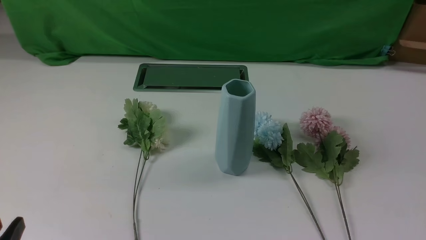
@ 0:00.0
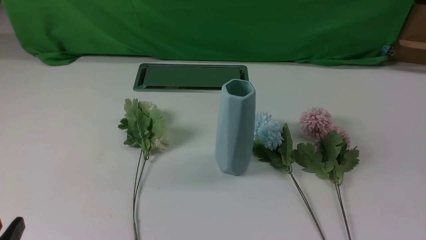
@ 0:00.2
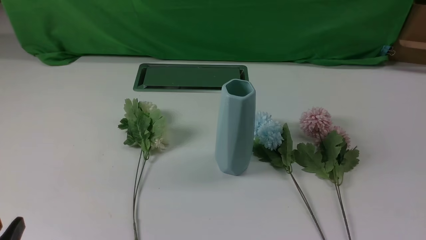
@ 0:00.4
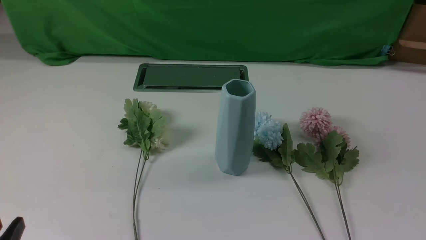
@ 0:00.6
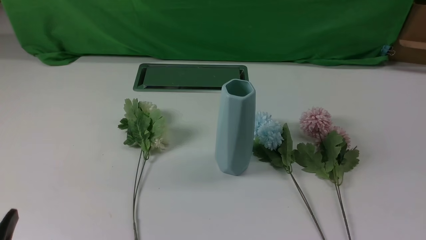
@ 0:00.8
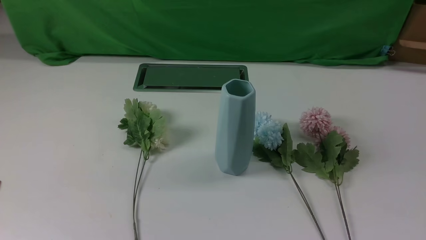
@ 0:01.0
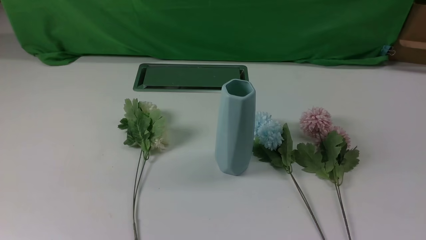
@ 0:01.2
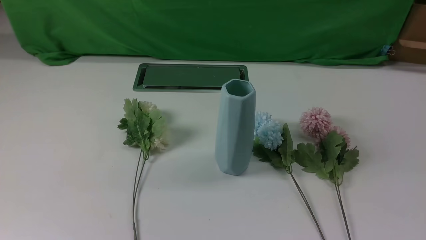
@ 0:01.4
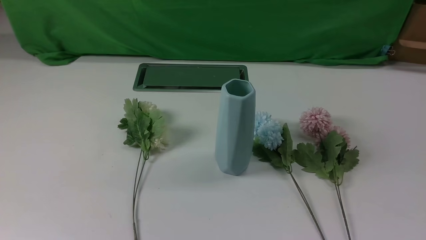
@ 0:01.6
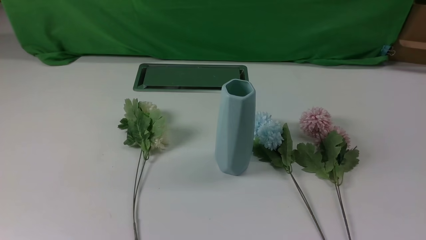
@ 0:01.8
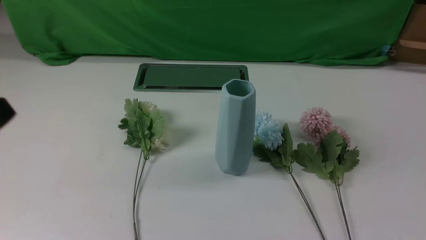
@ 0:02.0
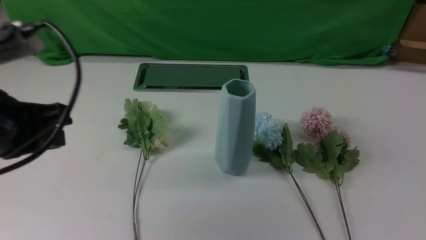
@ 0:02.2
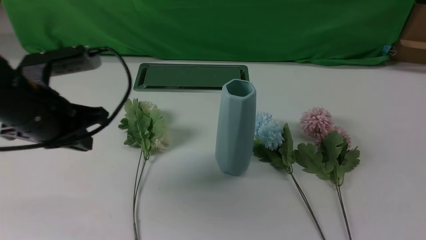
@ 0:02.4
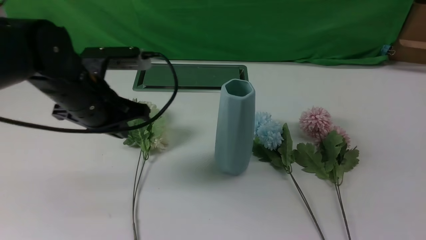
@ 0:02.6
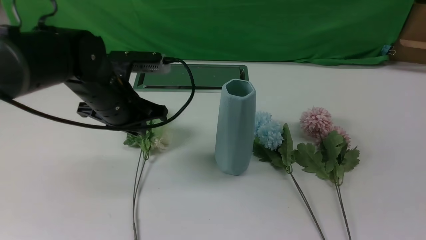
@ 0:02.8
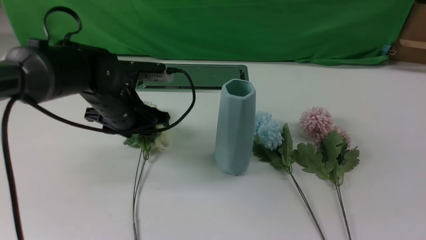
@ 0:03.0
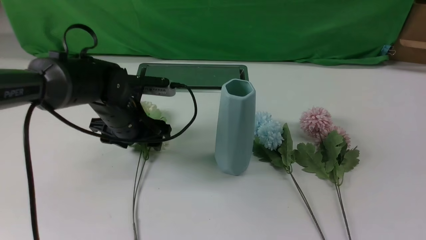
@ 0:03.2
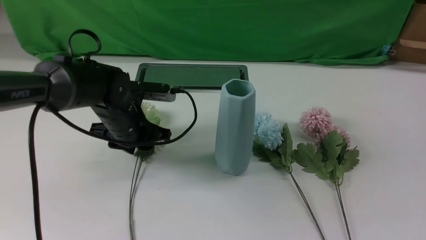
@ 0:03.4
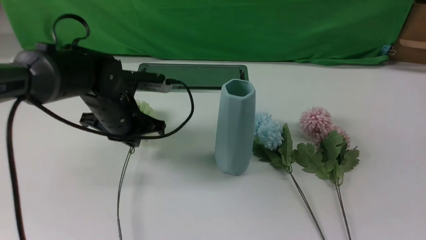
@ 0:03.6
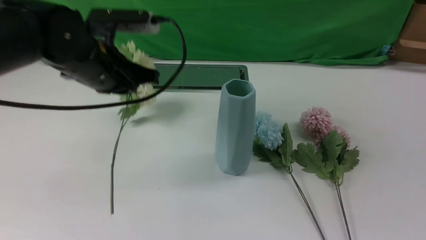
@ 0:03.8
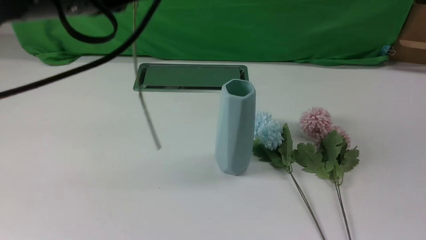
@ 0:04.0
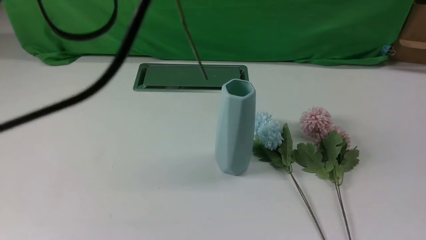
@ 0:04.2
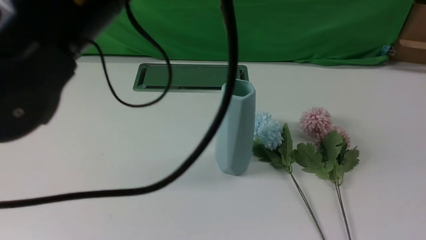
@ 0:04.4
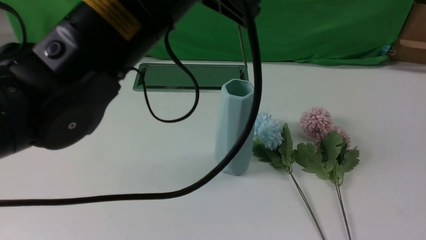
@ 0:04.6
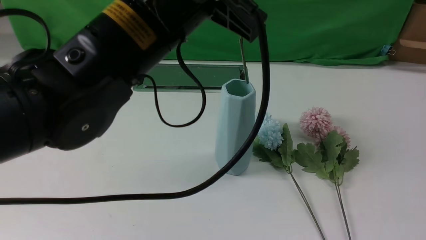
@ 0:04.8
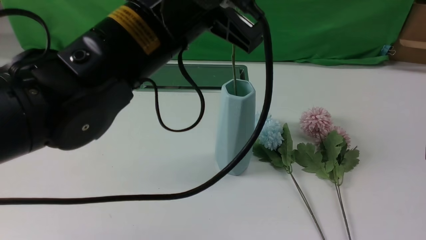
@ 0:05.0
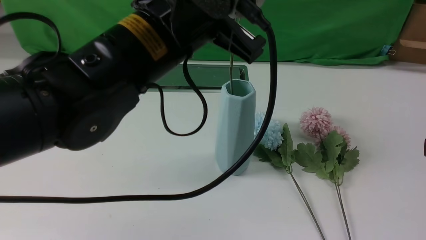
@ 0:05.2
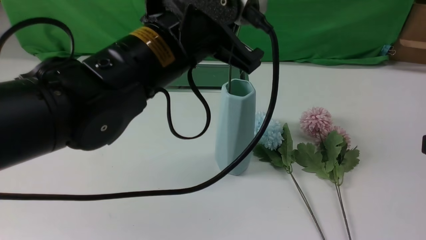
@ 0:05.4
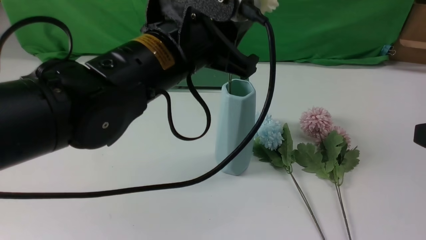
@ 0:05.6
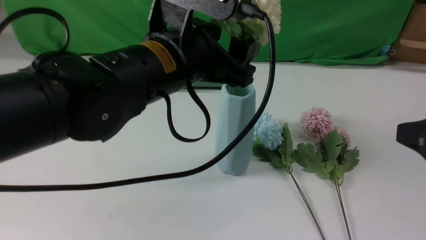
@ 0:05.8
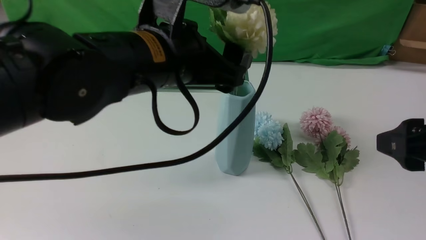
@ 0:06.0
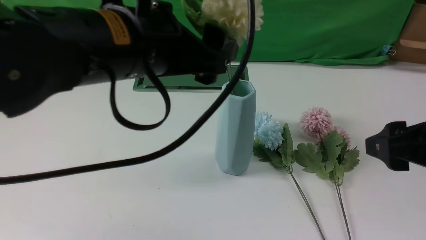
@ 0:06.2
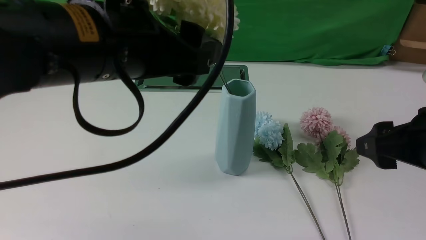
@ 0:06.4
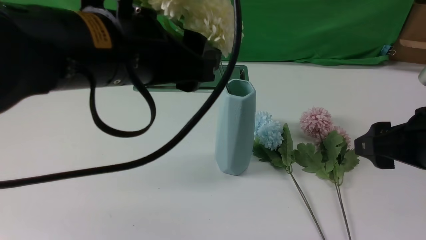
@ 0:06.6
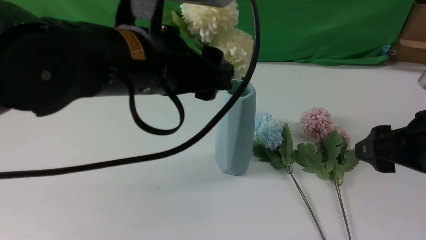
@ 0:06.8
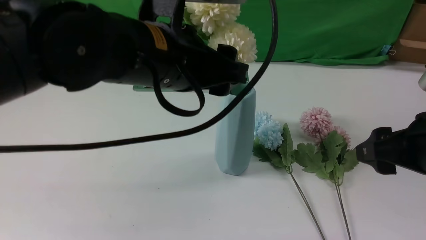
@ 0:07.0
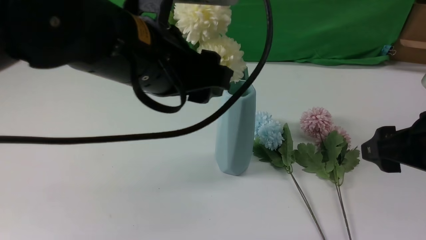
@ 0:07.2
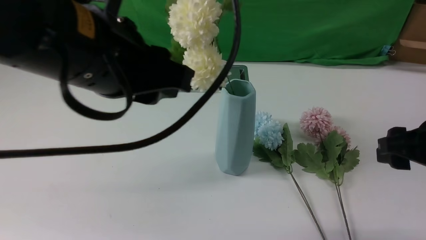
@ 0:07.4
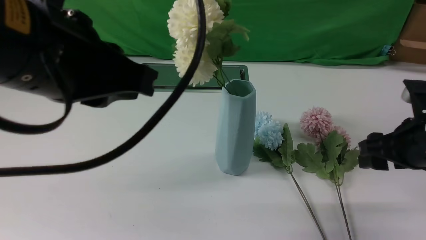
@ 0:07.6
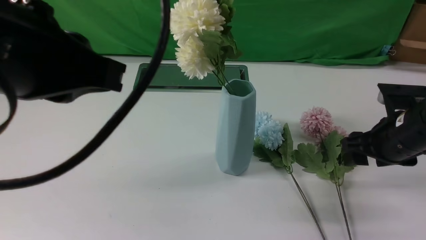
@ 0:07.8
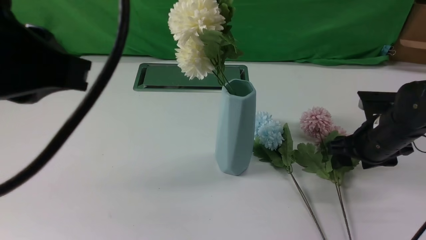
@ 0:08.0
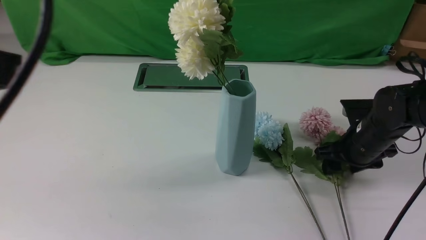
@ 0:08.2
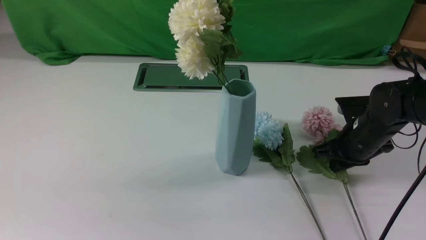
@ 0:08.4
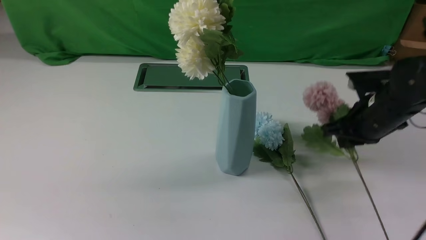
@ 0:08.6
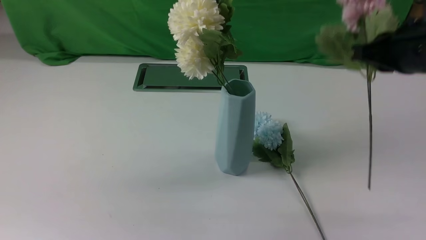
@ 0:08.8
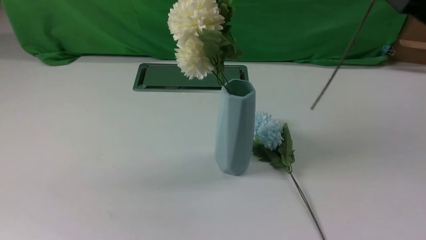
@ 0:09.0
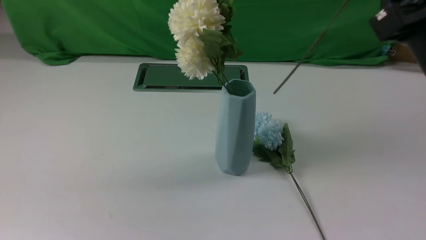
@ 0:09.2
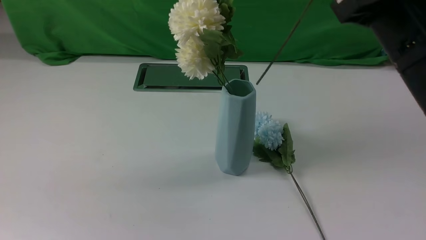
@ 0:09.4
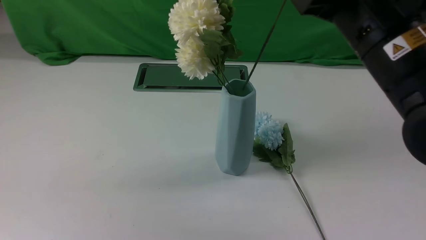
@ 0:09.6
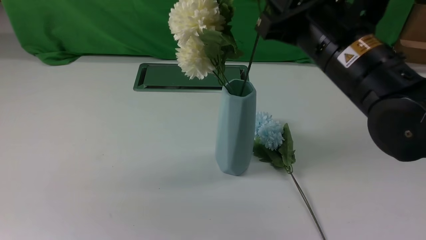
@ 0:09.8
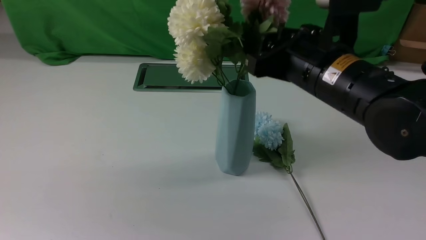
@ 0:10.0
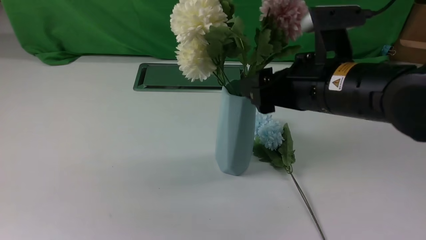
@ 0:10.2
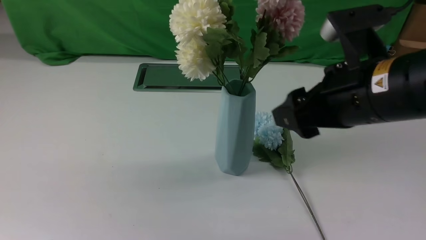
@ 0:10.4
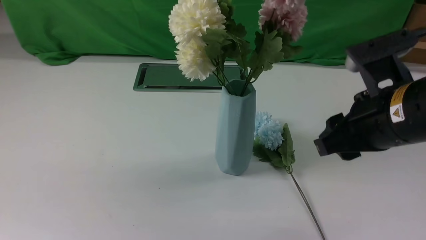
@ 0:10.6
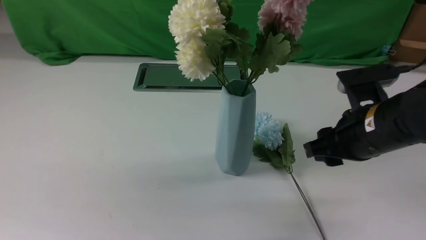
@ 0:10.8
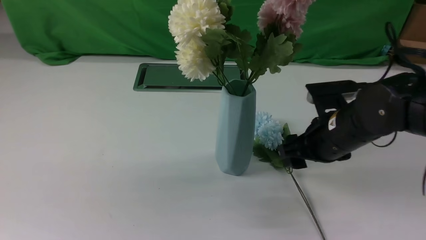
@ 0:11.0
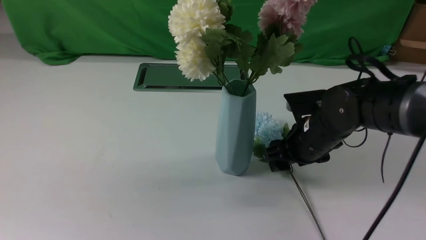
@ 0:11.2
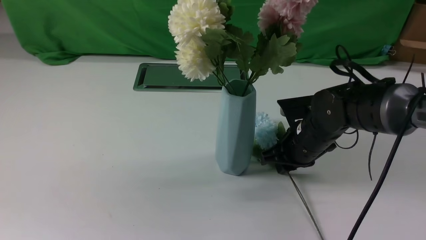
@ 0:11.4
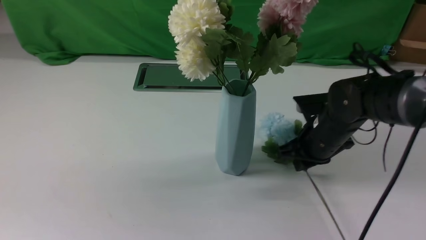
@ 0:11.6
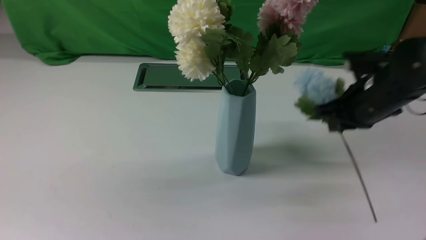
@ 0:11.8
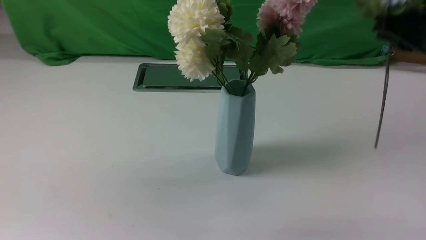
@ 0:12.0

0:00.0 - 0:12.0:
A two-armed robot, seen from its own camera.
Task of the whole recording: insert the flowers into the vase on the white table.
Step, 0:00.0 - 0:03.4: use the left arm to grab a bunch of fresh flowers.
Step, 0:03.6 - 0:07.2: use the left arm to insert the flowers into the vase.
Step, 0:07.4 - 0:08.4: use the right arm to grab a bunch of fresh flowers.
Step, 0:08.6 - 0:10.2: use the right arm to insert the flowers into the vase.
Step, 0:10.4 - 0:11.4: use the right arm to grab a bunch of fresh flowers.
0:01.6 - 0:03.0: The right gripper shifts some 15 cm upward and forward; the left gripper is displaced forward by some 35 cm, and opens up.
0:03.0 - 0:04.4: The left gripper goes some 30 cm upward and backward, and closes.
0:04.4 - 0:06.0: The right gripper opens up; the left gripper goes roughly 10 cm downward, and opens its fingers.
0:06.0 - 0:07.6: The right gripper travels forward and downward by about 15 cm; the left gripper moves backward, to the left and upward, approximately 10 cm, and closes up.
0:07.6 - 0:09.0: The left gripper heads to the left and backward, covering some 15 cm. Meanwhile the right gripper goes approximately 15 cm upward and to the left, and closes its fingers.
0:09.0 - 0:10.4: The right gripper is displaced downward and to the left by about 10 cm, and opens its fingers.
0:10.4 - 0:12.0: The right gripper shifts roughly 10 cm to the right, reaches approximately 15 cm downward, then returns, and closes up.

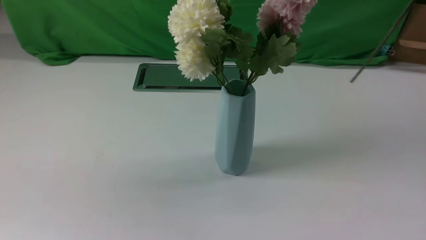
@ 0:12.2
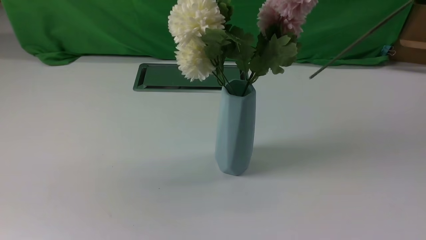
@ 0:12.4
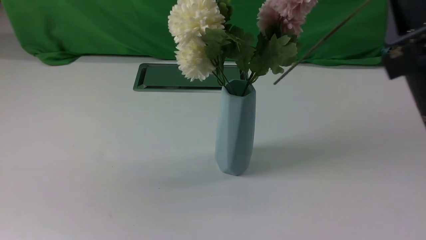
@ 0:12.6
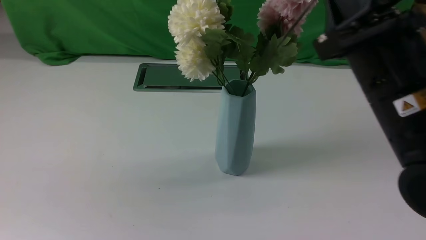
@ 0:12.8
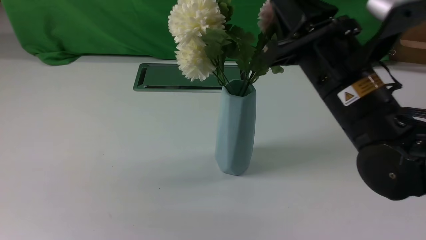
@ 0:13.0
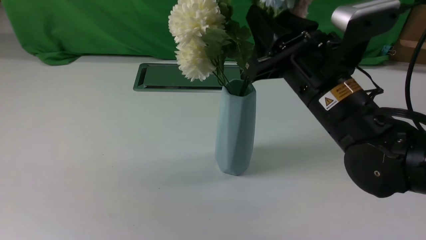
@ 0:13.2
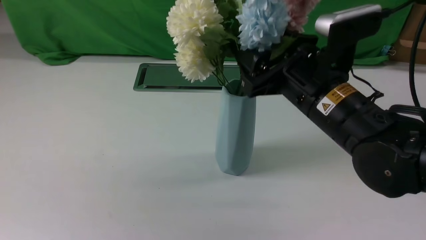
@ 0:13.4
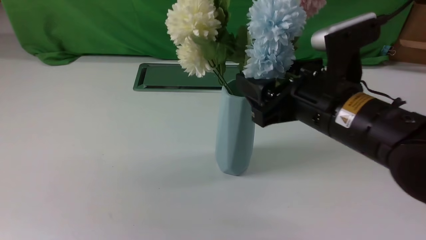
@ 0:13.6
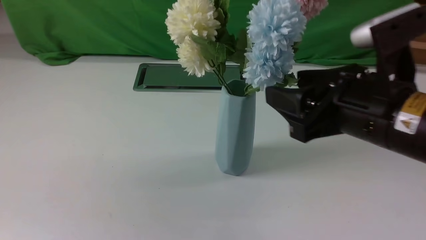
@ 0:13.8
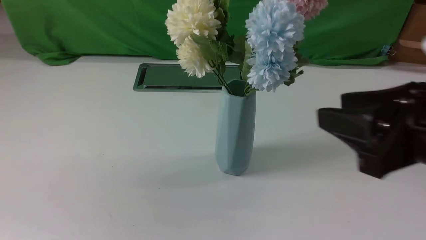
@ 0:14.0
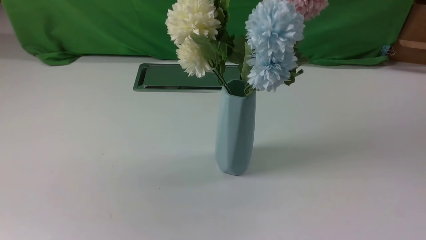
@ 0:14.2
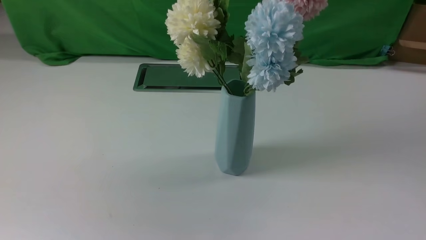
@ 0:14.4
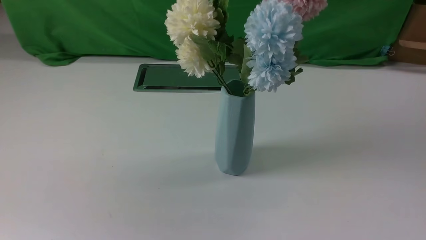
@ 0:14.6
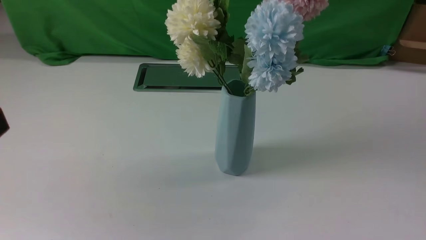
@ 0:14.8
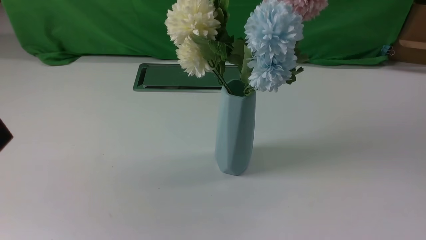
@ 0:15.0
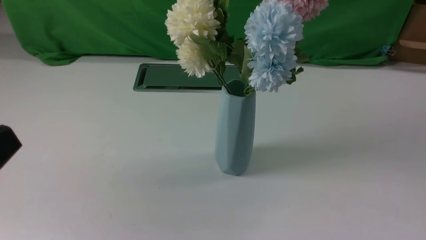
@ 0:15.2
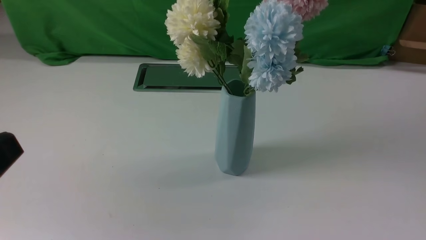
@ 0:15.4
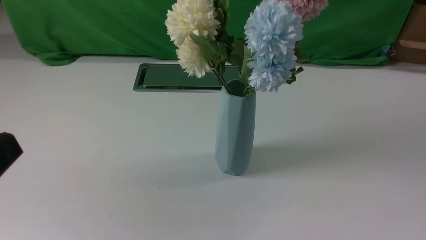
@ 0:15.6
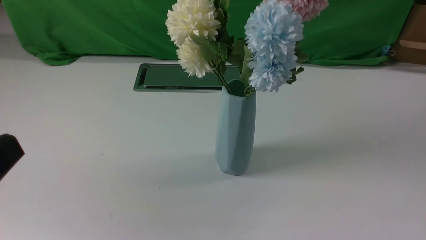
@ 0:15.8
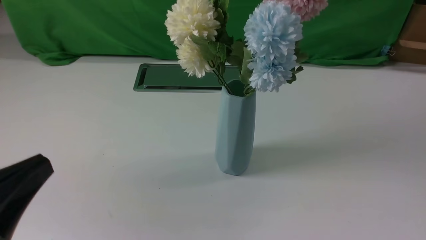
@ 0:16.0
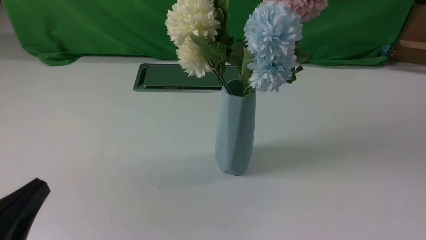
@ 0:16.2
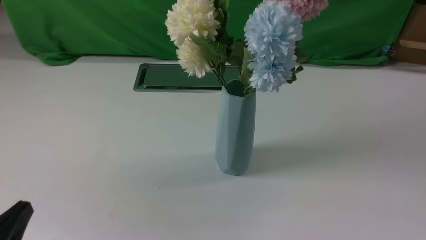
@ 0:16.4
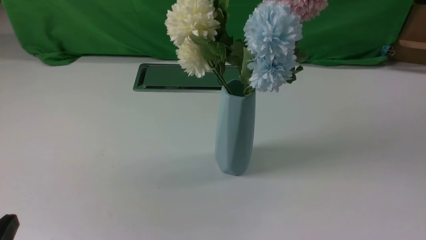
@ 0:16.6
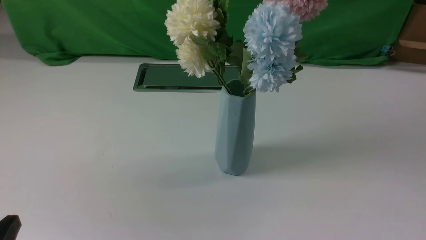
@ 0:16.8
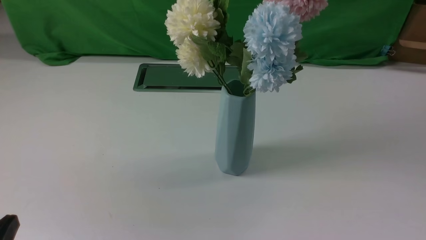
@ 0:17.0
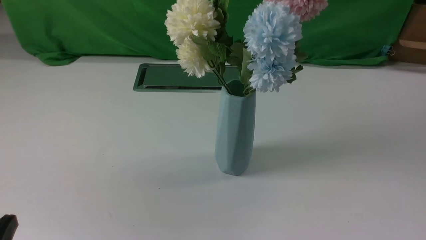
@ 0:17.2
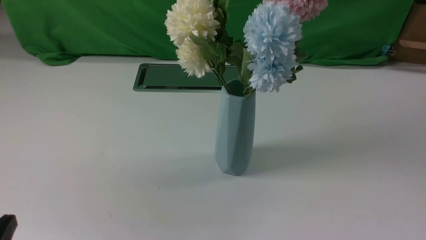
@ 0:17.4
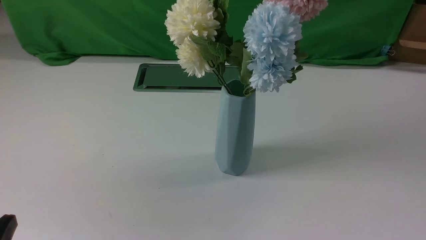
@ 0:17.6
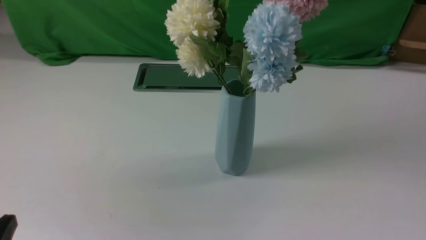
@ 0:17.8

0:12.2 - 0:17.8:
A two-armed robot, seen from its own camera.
Task of the whole recording: insert the flowers into the vase on the white table.
Step, 0:12.2 - 0:13.8: use the right arm to insert the flowers into the vase.
0:12.2 - 0:13.6: The right gripper shifts about 15 cm to the left and downward, and opens up.
0:13.6 - 0:15.0: The left gripper is displaced downward by about 5 cm. Meanwhile the right gripper goes some 30 cm backward and to the right, and closes.
0:15.0 - 0:16.4: The left gripper heads downward, covering approximately 15 cm.
